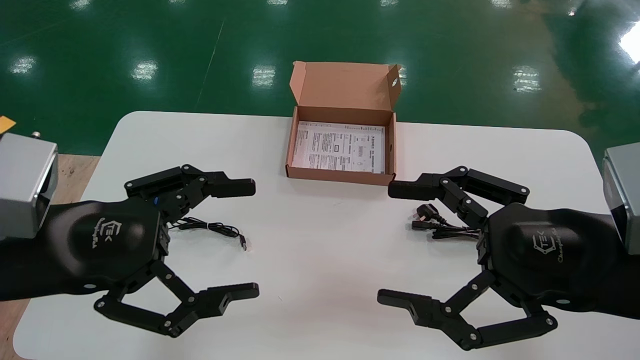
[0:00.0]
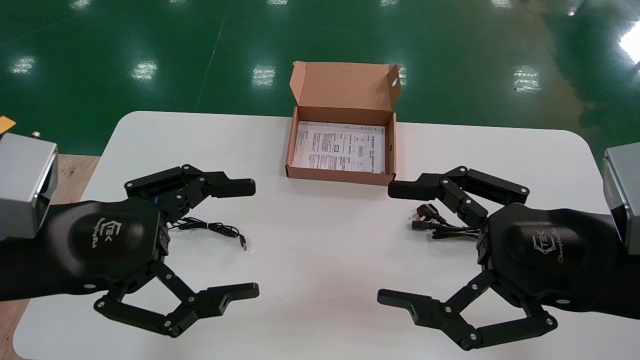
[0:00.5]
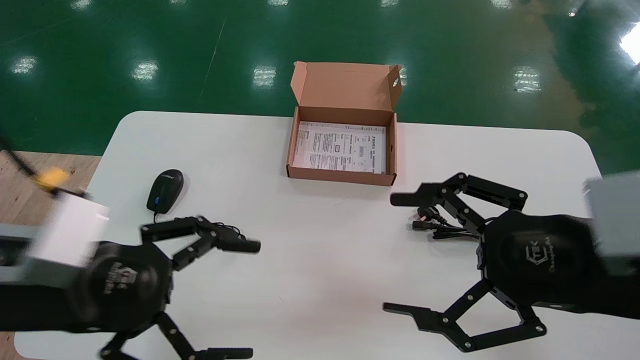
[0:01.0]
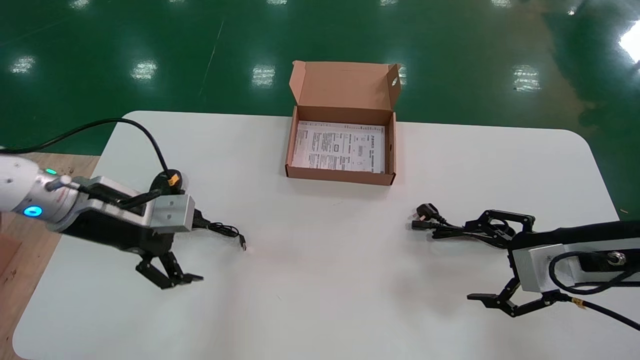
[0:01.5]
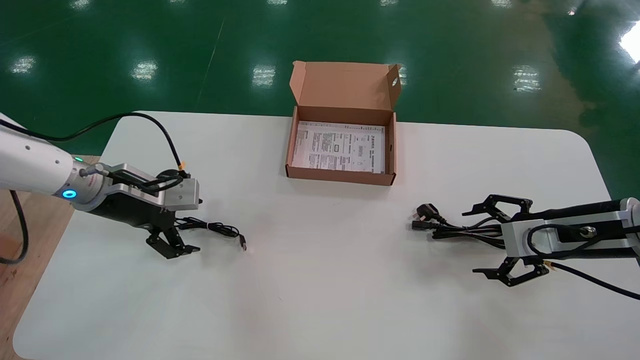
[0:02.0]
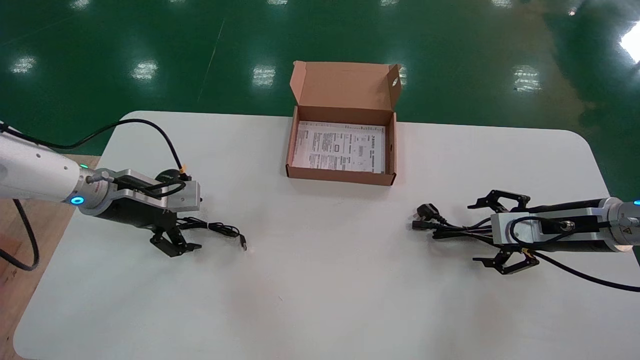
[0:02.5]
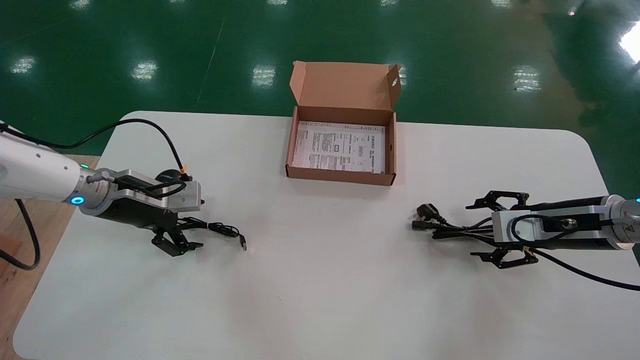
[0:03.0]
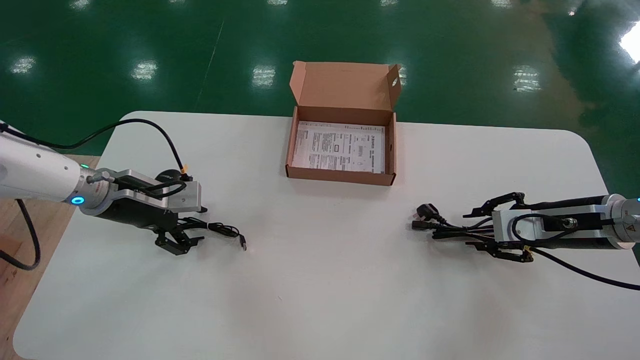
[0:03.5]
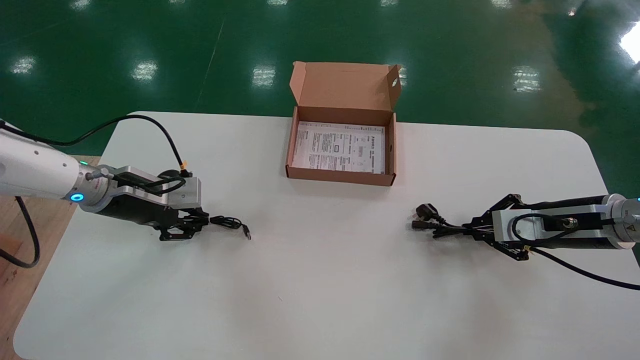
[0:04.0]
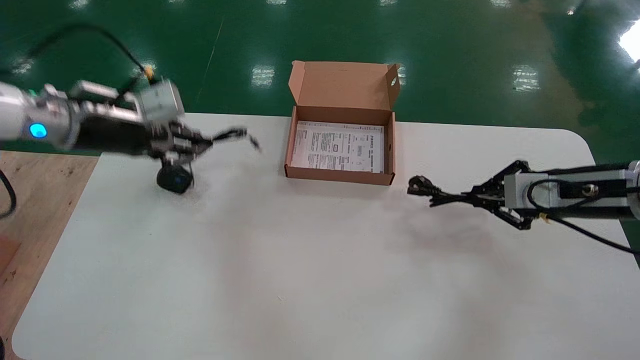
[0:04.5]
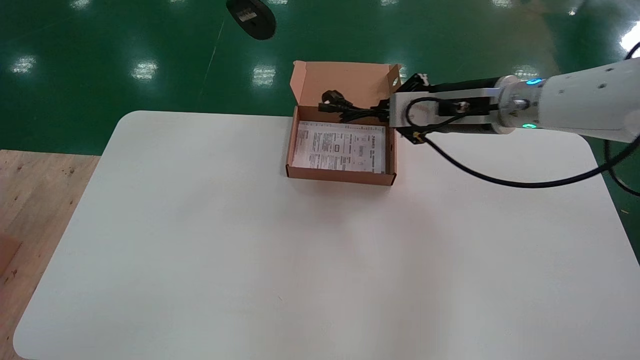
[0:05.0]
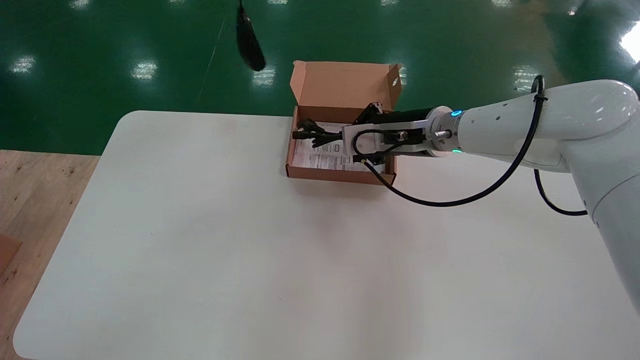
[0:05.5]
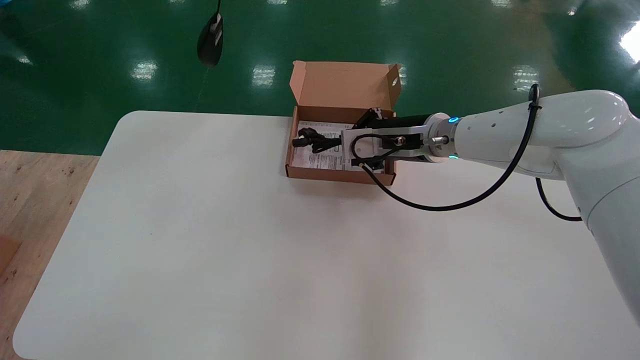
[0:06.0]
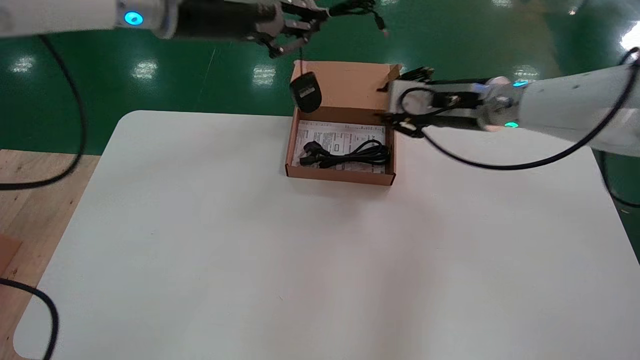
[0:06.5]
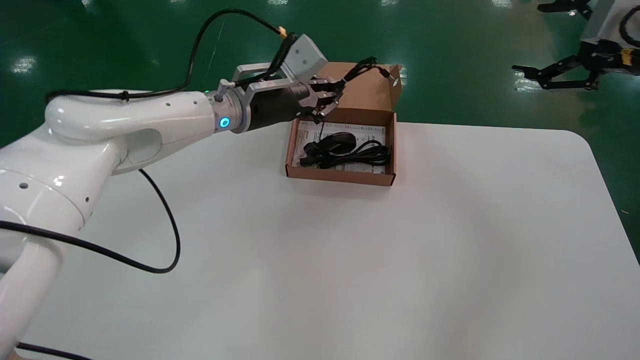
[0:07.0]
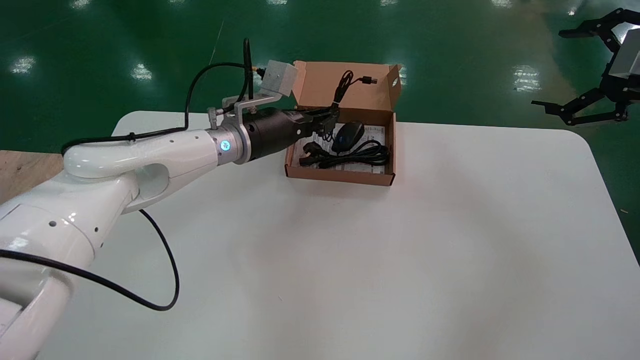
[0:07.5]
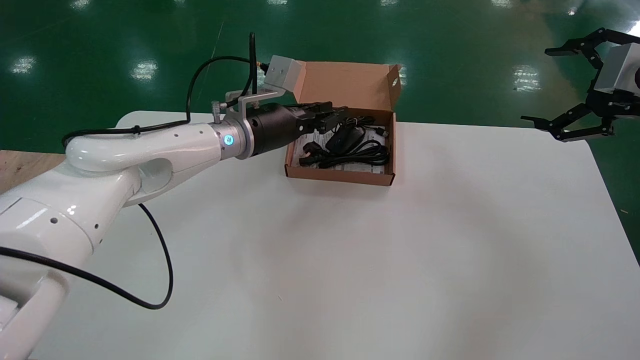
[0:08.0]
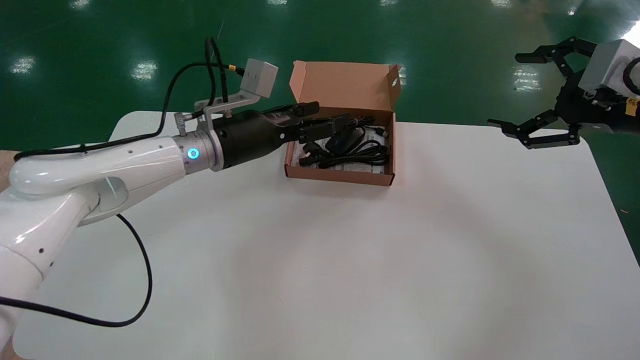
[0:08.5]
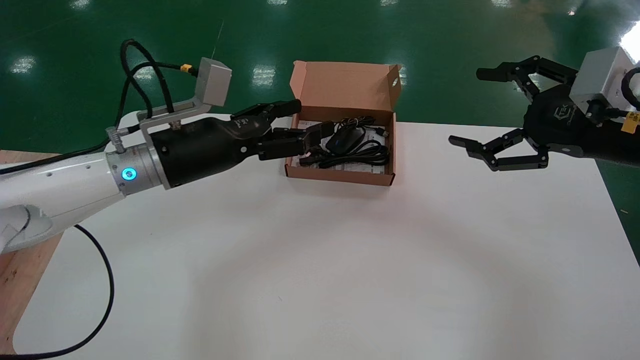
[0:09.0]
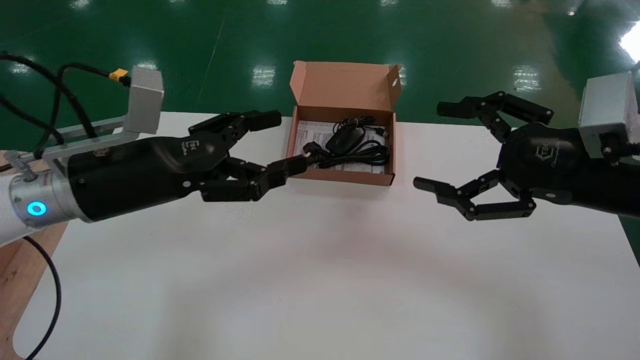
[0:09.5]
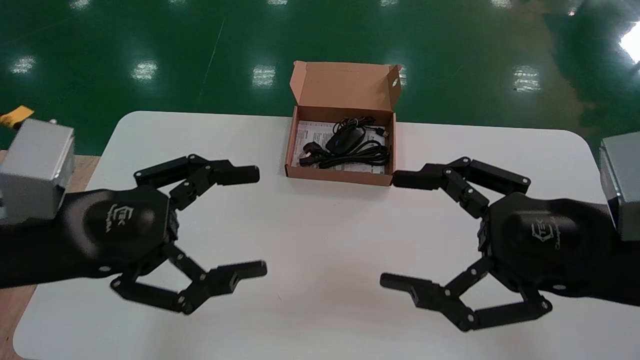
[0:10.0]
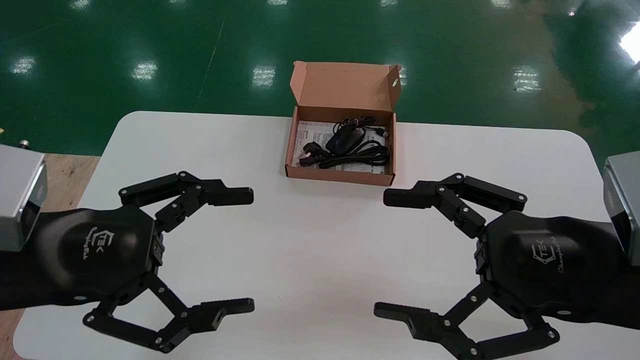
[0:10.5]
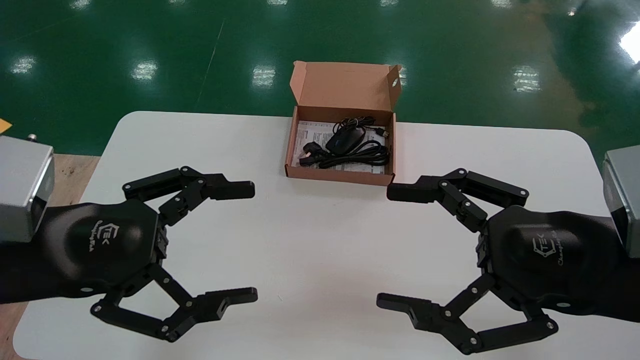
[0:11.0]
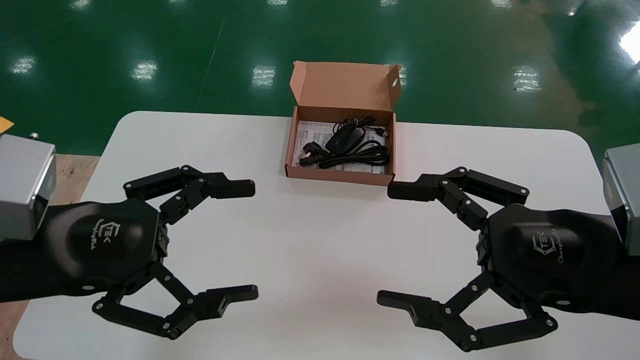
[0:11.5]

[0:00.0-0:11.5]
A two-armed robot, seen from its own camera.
Step, 0:01.5 to 0:04.0: Simultaneously pick up the mouse and power cord from the accessory packaging area.
Step, 0:04.5 to 0:08.0: Place the mouse and power cord into the box.
0:00.0 to 0:02.0: The left gripper travels forward by approximately 20 cm, while the right gripper moves forward and to the right, some 20 cm.
0:02.0 to 0:04.0: The right gripper closes its fingers. The left gripper closes up.
0:04.0 to 0:06.0: The right gripper shifts about 25 cm to the left. Meanwhile the left gripper goes roughly 30 cm upward.
0:06.0 to 0:07.5: The left gripper heads downward, forward and to the right, covering approximately 30 cm. Meanwhile the right gripper heads to the right and backward, covering some 30 cm, and opens.
0:07.5 to 0:09.5: The right gripper travels to the left, downward and backward by some 15 cm. The left gripper shifts some 20 cm backward and to the left, and opens.
0:09.5 to 0:11.5: The two grippers go roughly 10 cm backward.

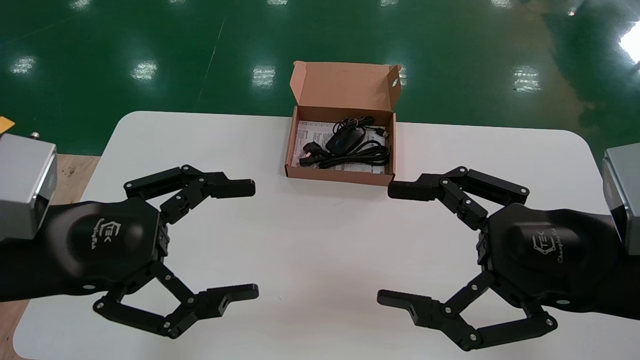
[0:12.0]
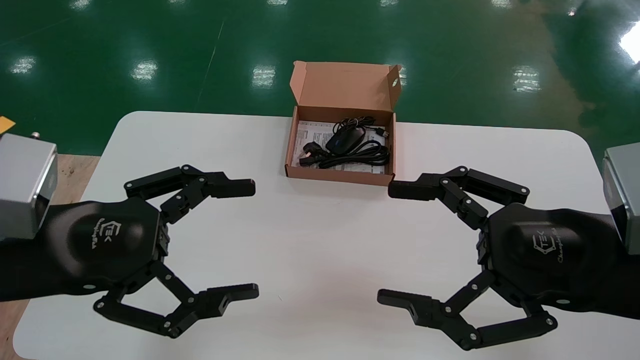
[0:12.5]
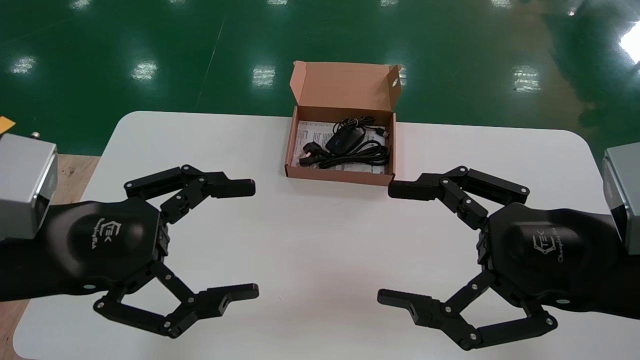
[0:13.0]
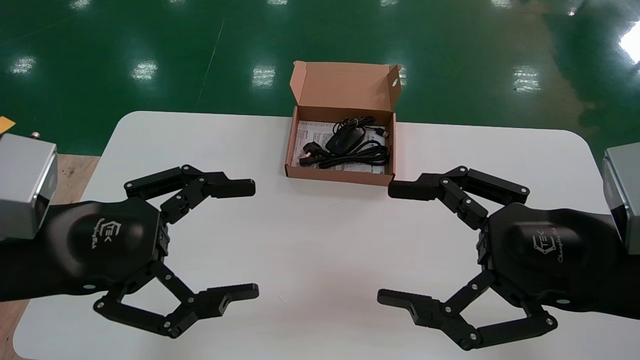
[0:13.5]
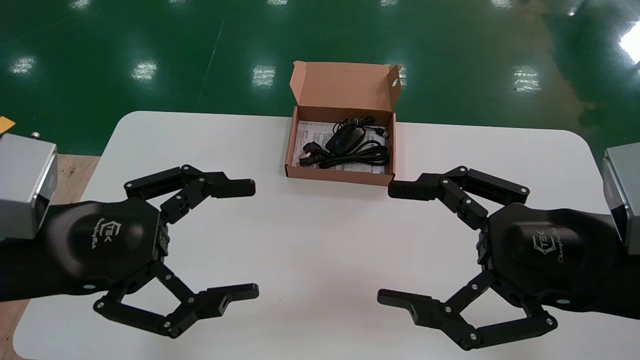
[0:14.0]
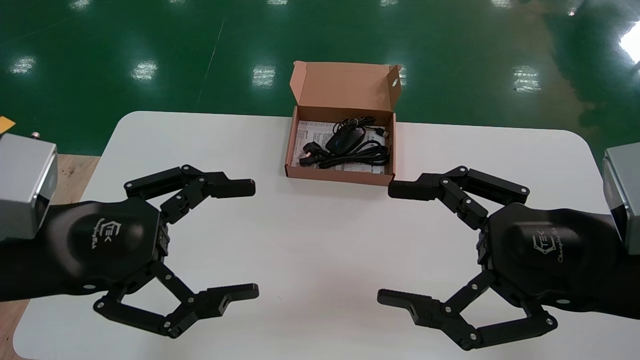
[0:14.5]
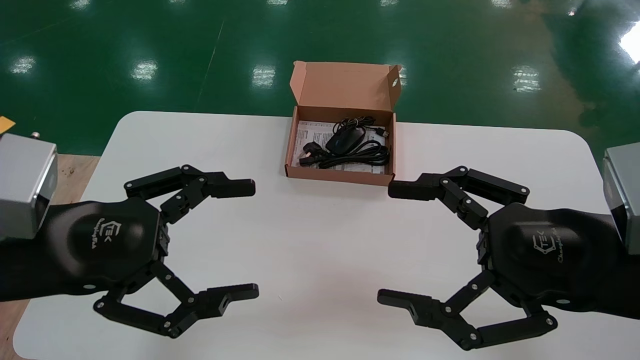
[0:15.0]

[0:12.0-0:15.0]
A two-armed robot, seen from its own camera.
0:12.0 to 0:15.0: Both grippers stay put.
